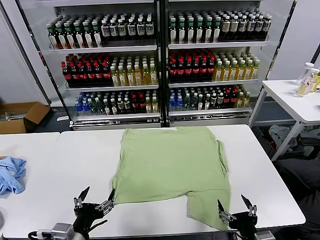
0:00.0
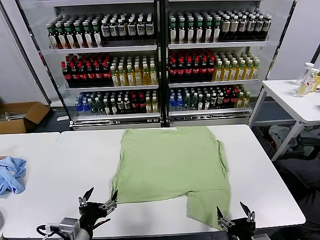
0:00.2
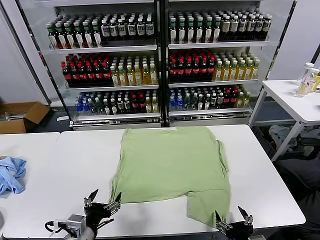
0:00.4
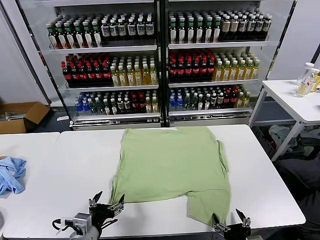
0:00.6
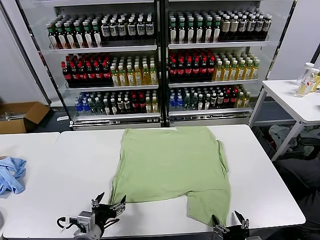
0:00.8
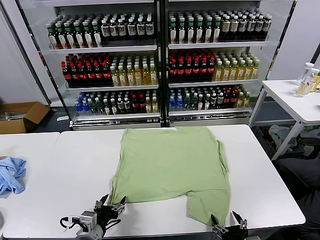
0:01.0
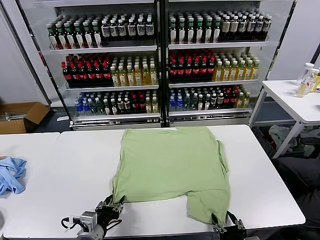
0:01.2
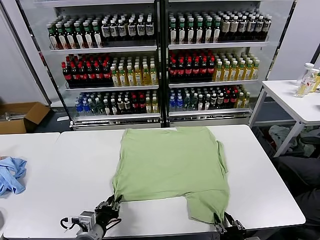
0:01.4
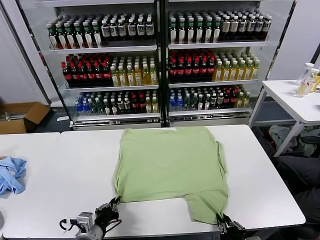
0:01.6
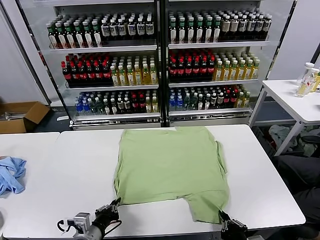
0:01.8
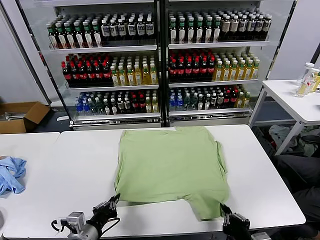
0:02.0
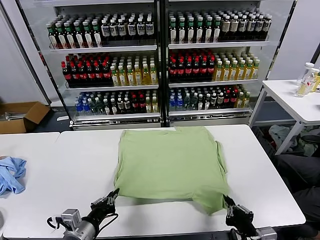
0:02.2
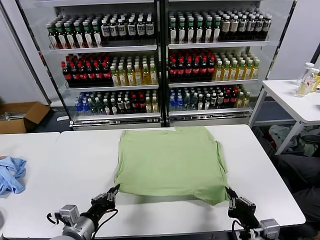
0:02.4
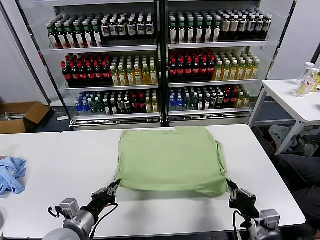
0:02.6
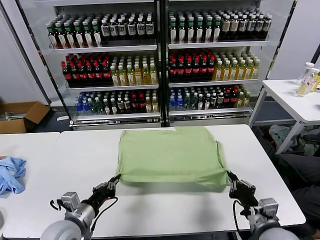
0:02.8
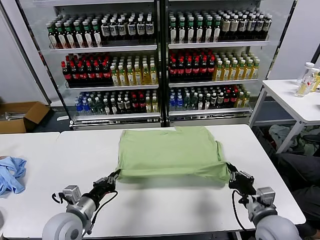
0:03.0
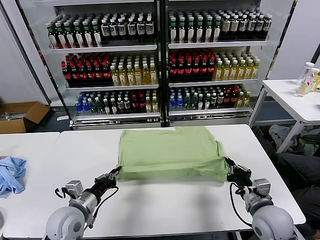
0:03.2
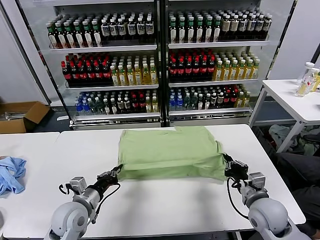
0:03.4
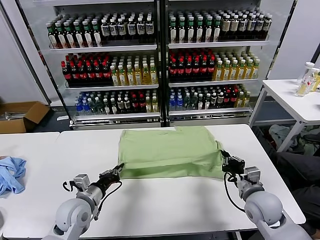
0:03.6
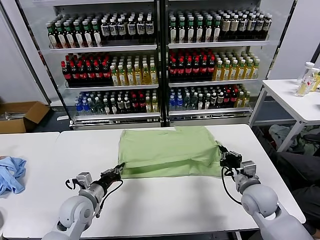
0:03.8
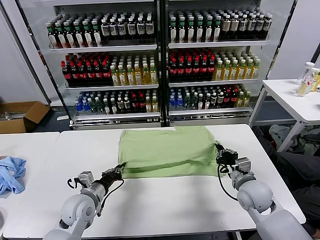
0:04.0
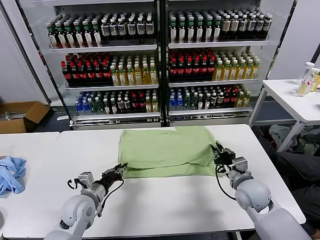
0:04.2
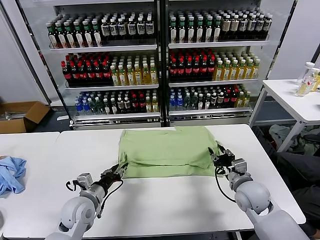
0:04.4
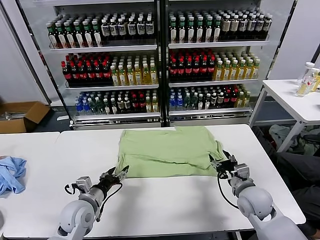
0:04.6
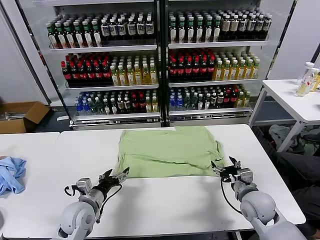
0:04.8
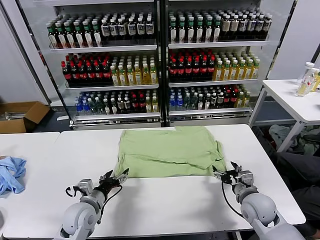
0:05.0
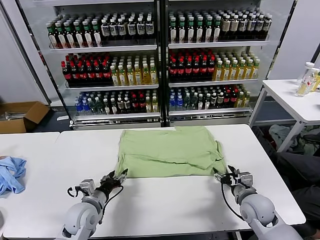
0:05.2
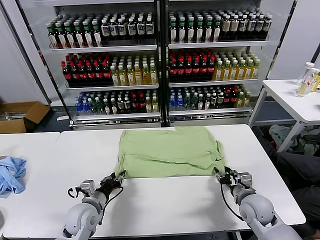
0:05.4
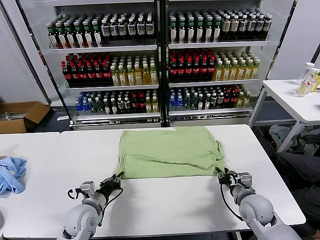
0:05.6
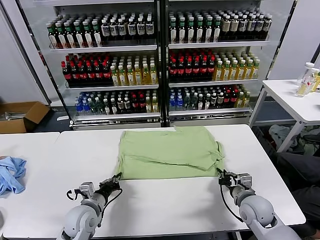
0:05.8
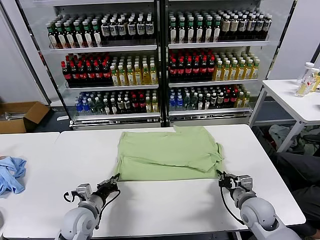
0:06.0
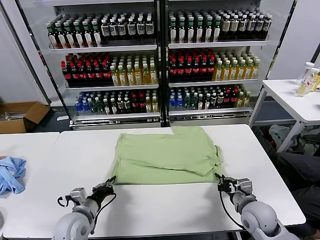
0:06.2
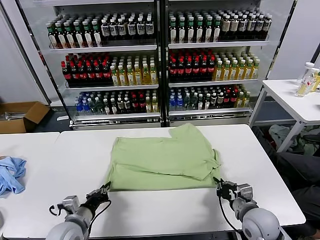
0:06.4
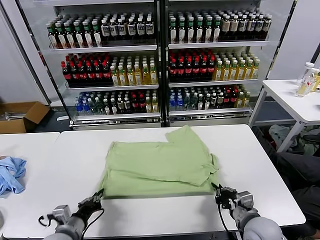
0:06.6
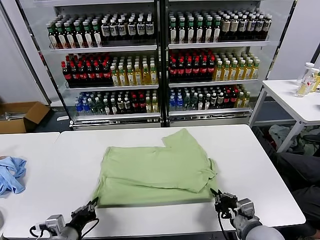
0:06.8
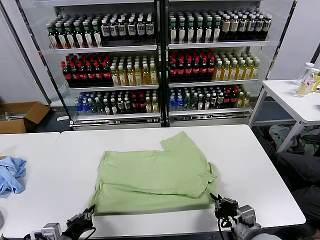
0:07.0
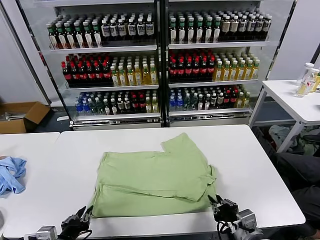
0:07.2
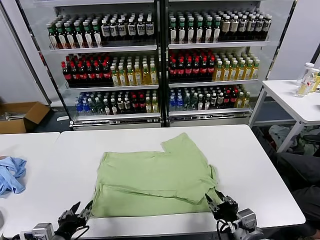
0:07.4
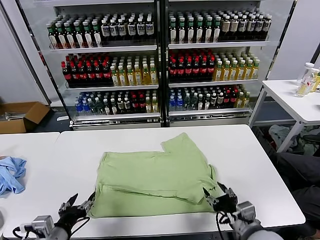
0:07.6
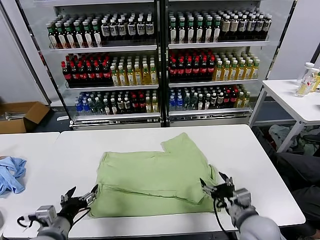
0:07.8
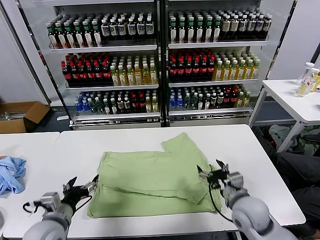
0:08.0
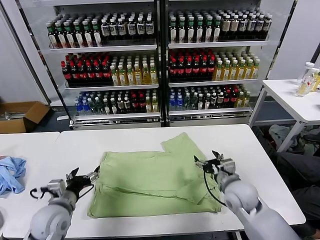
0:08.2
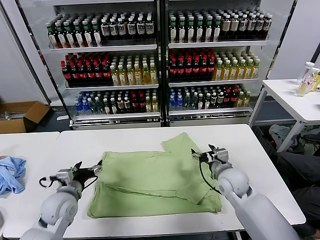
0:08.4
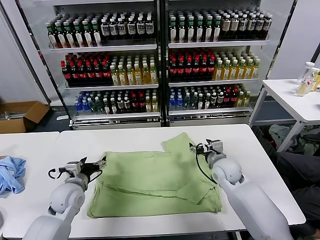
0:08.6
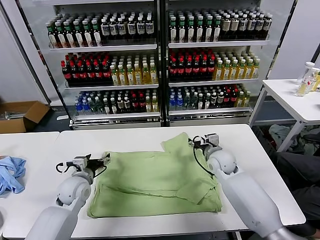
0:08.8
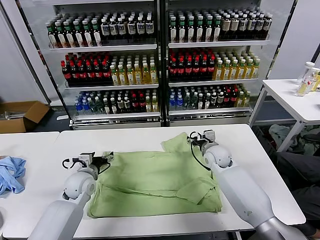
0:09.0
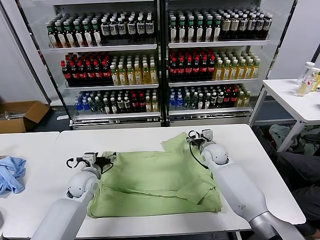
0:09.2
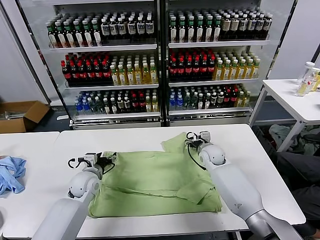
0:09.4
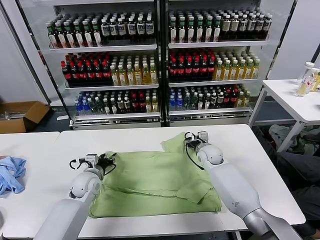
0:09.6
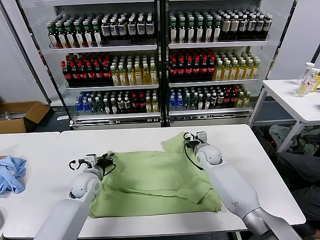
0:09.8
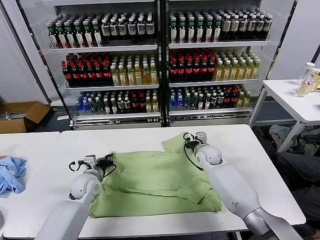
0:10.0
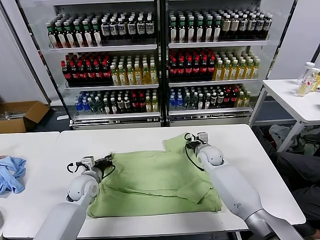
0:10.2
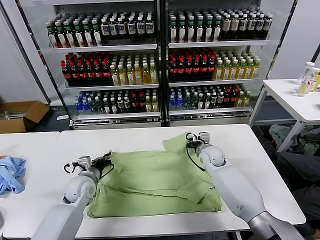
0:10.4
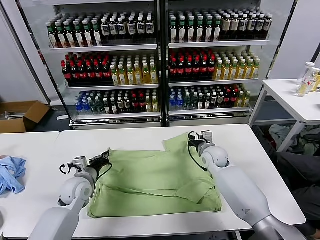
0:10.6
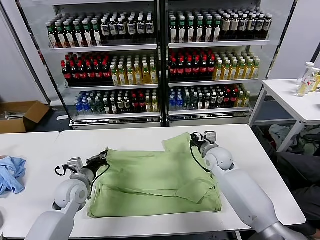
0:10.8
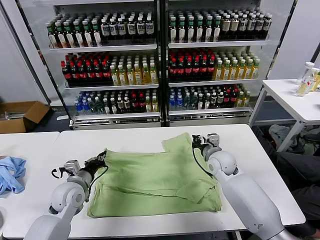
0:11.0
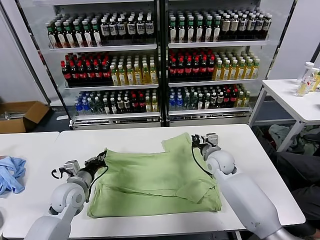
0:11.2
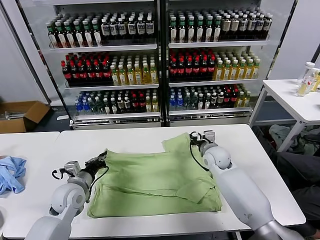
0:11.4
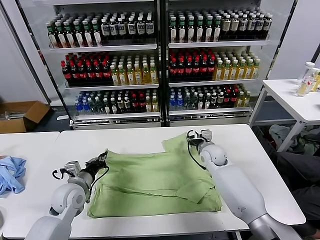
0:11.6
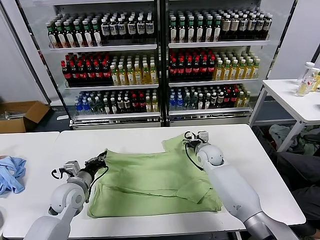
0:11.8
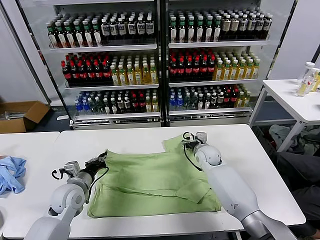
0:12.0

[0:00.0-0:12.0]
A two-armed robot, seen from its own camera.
Task of the whole recording: fold and organize the clothes.
Step, 0:00.0 to 0:01.8: use both grippers simultaneously to clamp the lower edge of the clothing fabric.
Step, 0:02.0 to 0:04.6: use both grippers to drag the lower edge of the fabric forward and fold it over the upper edge.
Step, 0:04.8 to 0:07.4: Drag the clothes downward with both gripper.
Step, 0:07.6 to 0:10.0: use both grippers simultaneously to clamp the upper edge of the clothing fabric.
0:01.6 to 0:03.0: The left gripper is displaced forward by approximately 5 cm; the right gripper travels forward by approximately 15 cm.
0:03.0 to 0:04.4: The grippers both shift forward by approximately 5 cm. The left gripper opens its fingers, while the right gripper opens its fingers.
0:04.4 to 0:06.0: The left gripper closes; the right gripper closes.
0:06.0 to 0:07.6: The two grippers go roughly 15 cm backward and upward. The right gripper opens up; the left gripper opens up.
0:07.6 to 0:09.0: The grippers both shift forward by some 25 cm.
0:09.0 to 0:10.4: The left gripper closes; the right gripper closes its fingers.
0:10.4 to 0:12.0: The right gripper opens its fingers, while the left gripper moves approximately 5 cm.

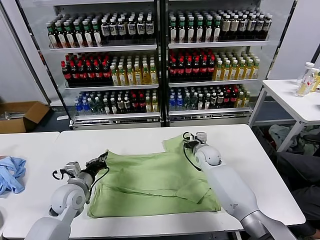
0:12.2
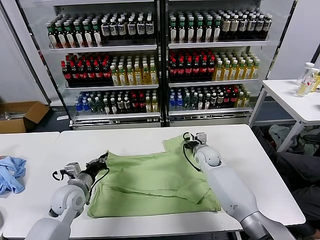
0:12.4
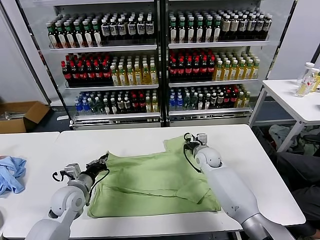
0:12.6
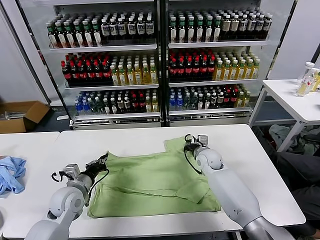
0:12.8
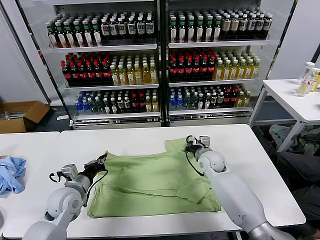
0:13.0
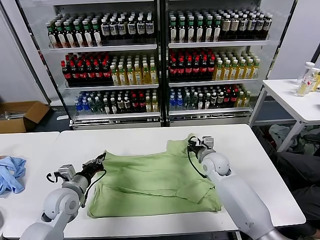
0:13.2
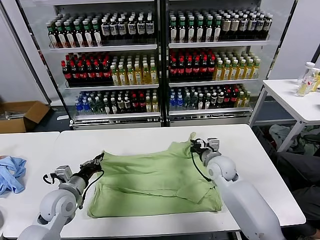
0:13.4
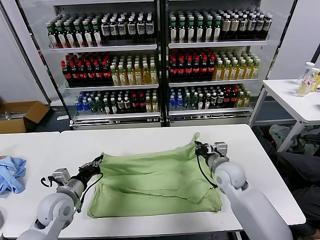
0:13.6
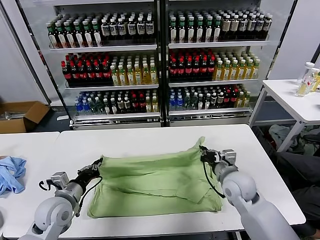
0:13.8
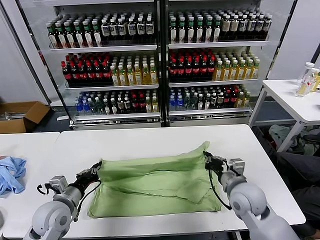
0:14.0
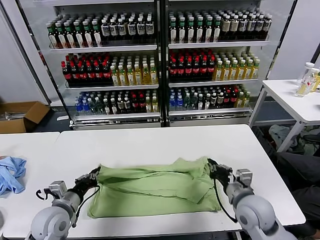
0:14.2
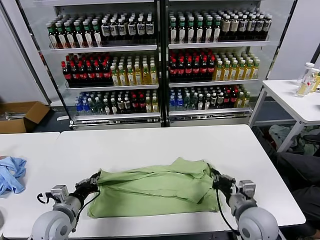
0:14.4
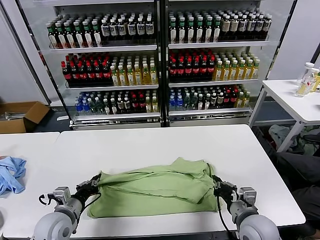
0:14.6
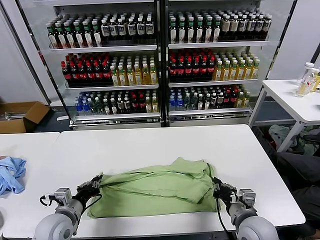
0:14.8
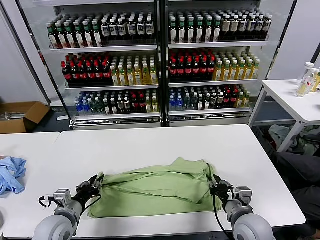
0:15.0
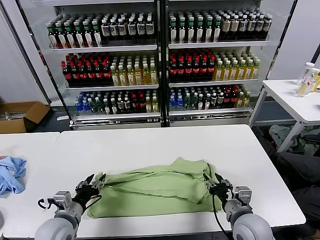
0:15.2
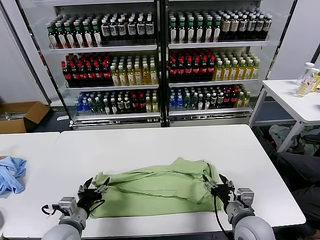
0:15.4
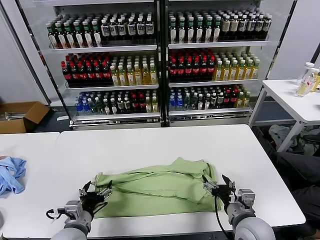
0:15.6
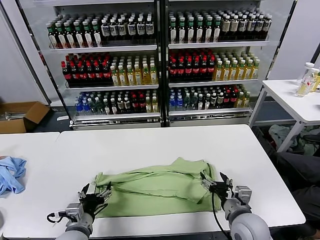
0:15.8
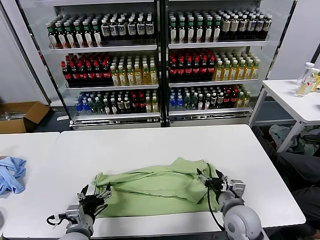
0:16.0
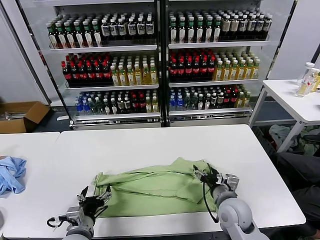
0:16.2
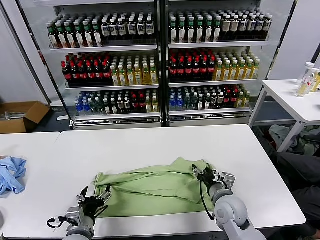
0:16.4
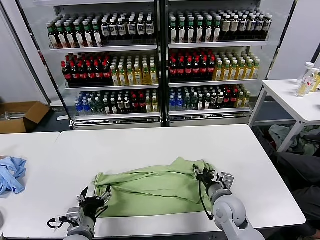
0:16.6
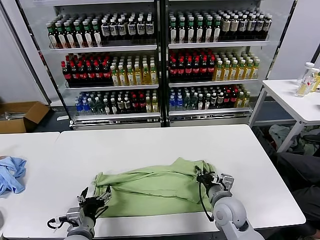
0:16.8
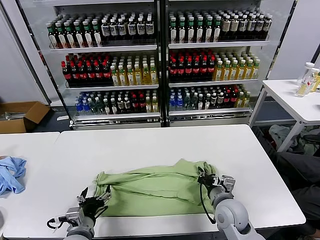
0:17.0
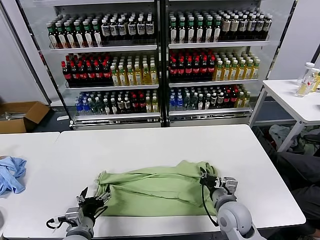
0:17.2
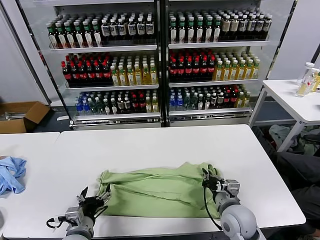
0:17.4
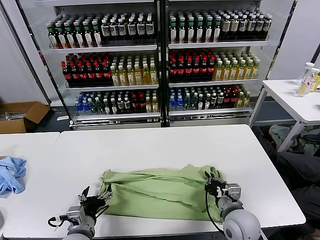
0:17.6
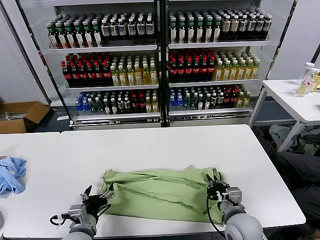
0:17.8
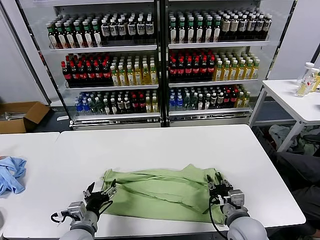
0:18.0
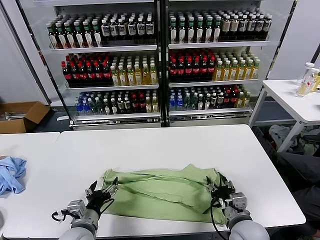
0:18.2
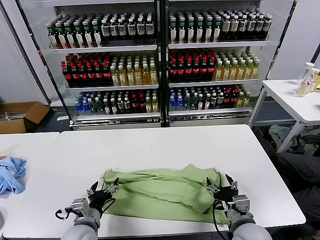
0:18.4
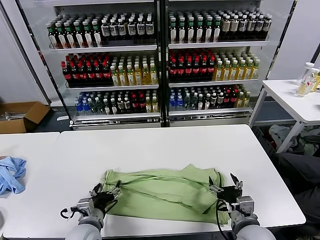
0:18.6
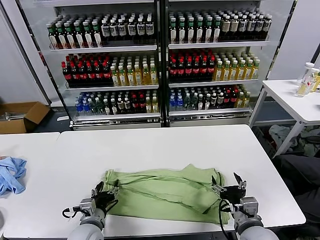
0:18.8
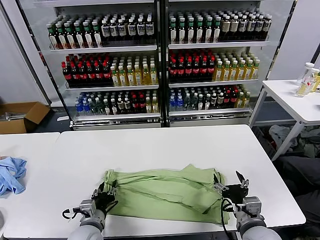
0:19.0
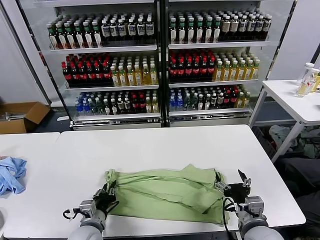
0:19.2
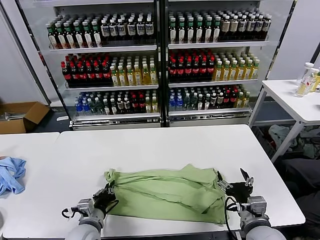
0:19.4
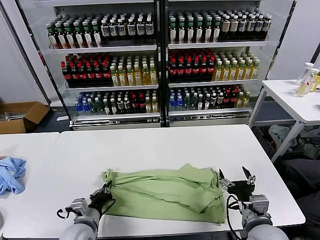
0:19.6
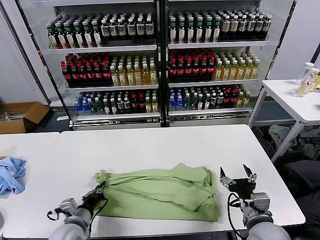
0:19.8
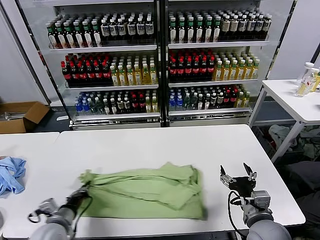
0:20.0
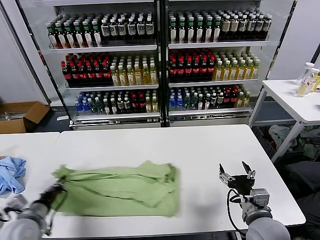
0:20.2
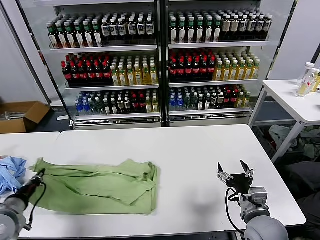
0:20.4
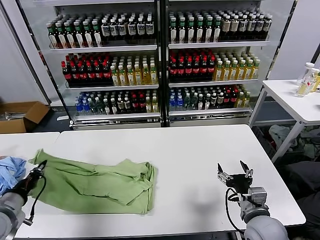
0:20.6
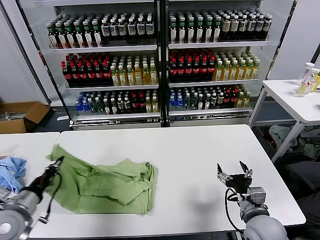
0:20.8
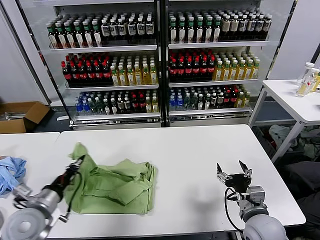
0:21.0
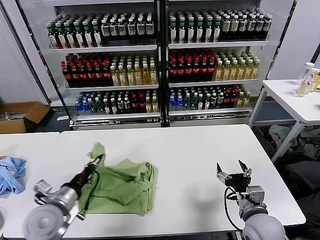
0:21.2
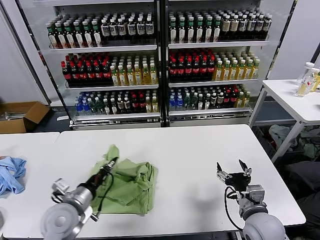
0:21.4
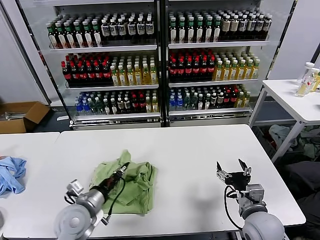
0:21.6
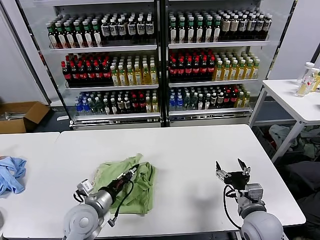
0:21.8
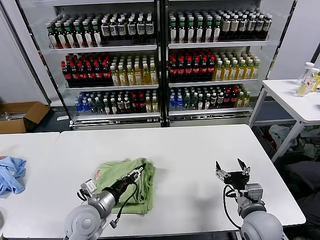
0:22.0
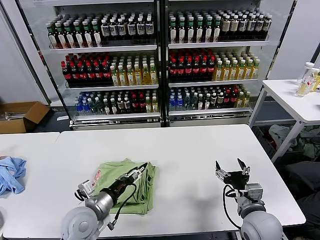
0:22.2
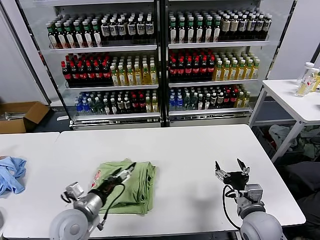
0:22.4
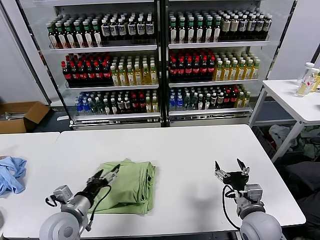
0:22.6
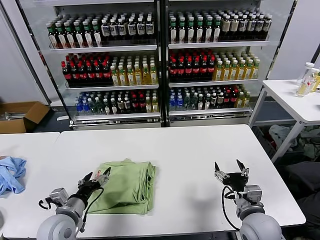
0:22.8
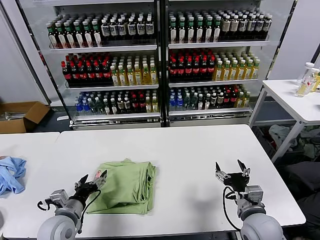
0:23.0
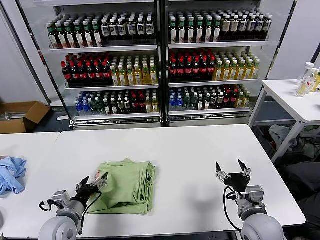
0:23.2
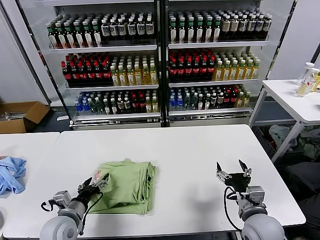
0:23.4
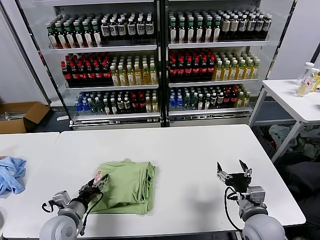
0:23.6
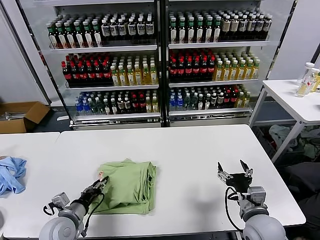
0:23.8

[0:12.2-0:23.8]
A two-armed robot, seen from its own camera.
Task of the whole recording: fold and organize the clothes.
Step, 0:12.2 to 0:16.0: use both grippers to drag the upper edge of the fabric backward and fold it over the lower edge.
Step, 0:16.2 to 0:19.4: use the left gripper to clamp the left edge of the fabric.
Step, 0:19.6 to 0:22.0: use the left gripper to drag the left edge of the fabric to the left and folds it over the right edge.
0:12.2 to 0:13.6: The right gripper shifts approximately 15 cm backward and upward, and closes up.
0:13.6 to 0:15.0: The right gripper heads backward, covering roughly 15 cm, and opens its fingers; the left gripper travels backward by approximately 5 cm.
0:15.0 to 0:16.6: The left gripper heads to the right, covering about 5 cm, and opens its fingers; the right gripper heads forward, covering approximately 5 cm, and opens, then closes once more.
0:16.6 to 0:18.0: The right gripper travels backward by approximately 10 cm, and closes, then opens again.
0:18.0 to 0:19.4: The right gripper ends up about 5 cm from where it was, and opens up, while the left gripper closes up.
0:19.4 to 0:21.0: The left gripper is displaced to the left and upward by roughly 20 cm.
0:21.0 to 0:22.4: The left gripper travels to the right by about 10 cm, and opens its fingers.
0:22.4 to 0:23.8: The left gripper heads to the left and downward, covering some 10 cm.
